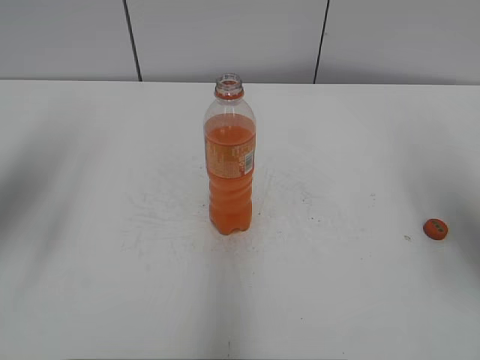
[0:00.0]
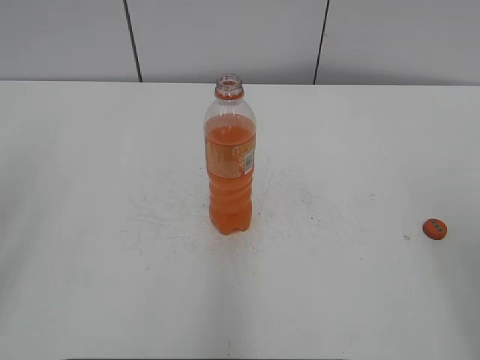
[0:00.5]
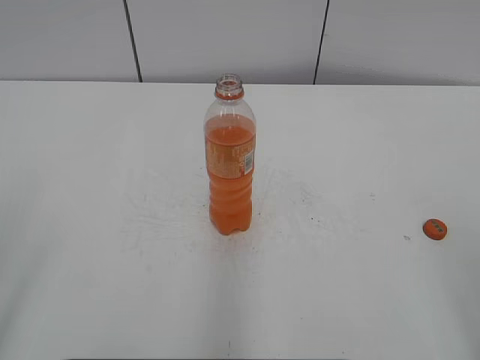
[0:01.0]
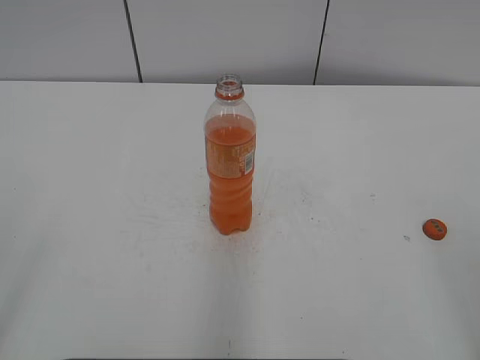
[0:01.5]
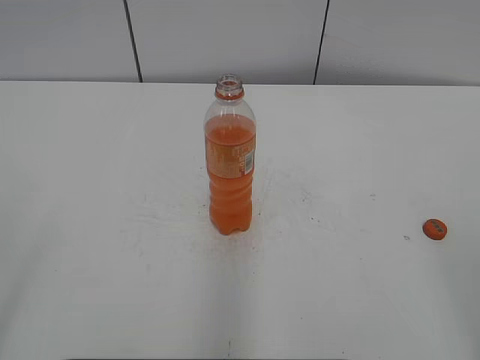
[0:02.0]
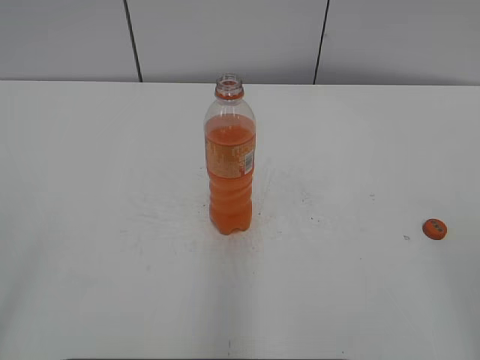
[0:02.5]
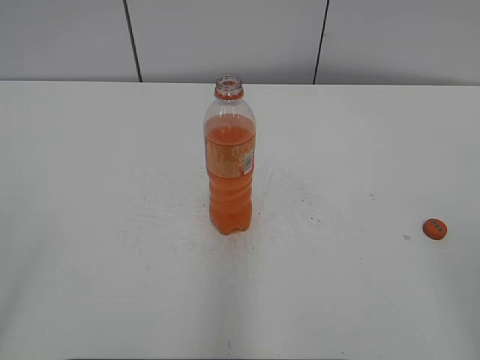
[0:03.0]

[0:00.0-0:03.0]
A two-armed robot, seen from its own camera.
0:00.0 to 0:01.5: The two grippers go approximately 25 cm backward.
0:01.5 to 0:03.0: Neither gripper changes place.
